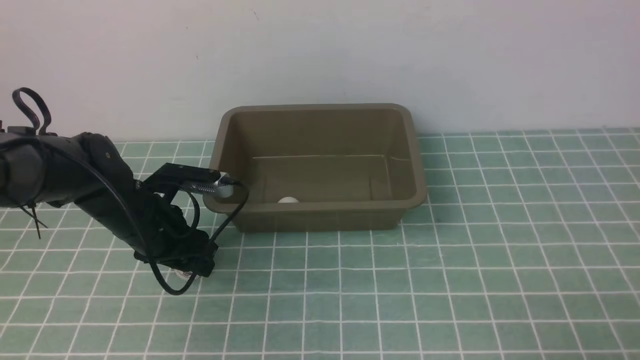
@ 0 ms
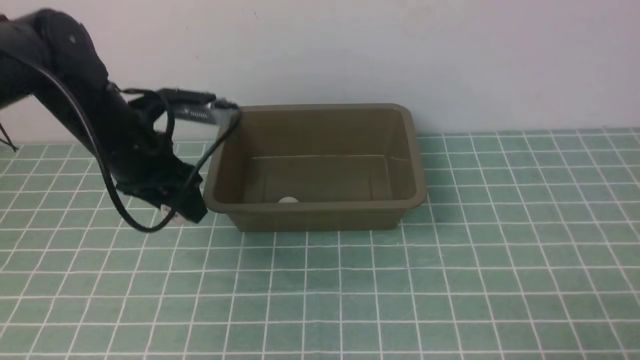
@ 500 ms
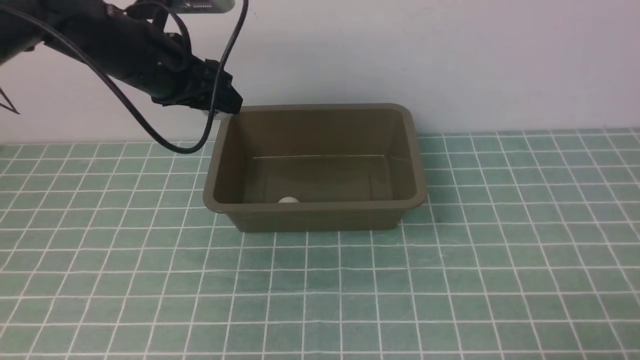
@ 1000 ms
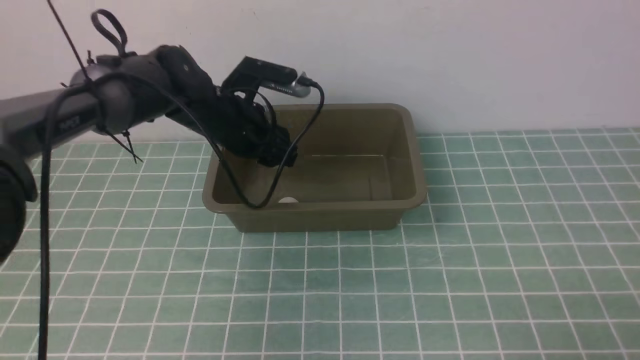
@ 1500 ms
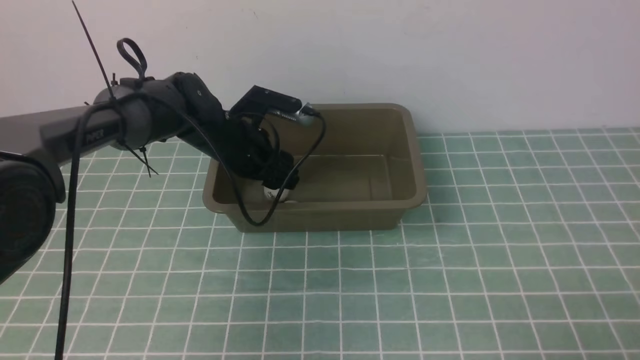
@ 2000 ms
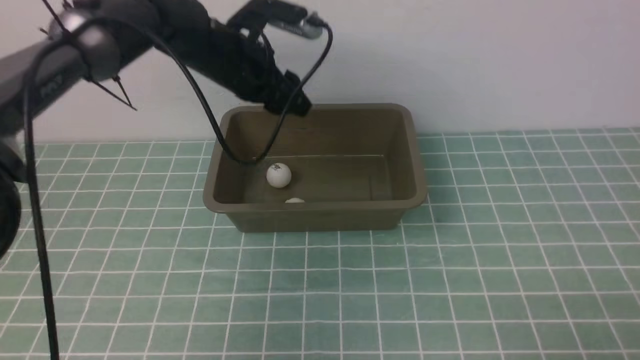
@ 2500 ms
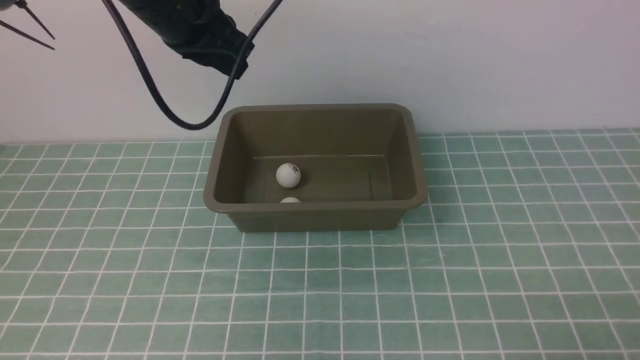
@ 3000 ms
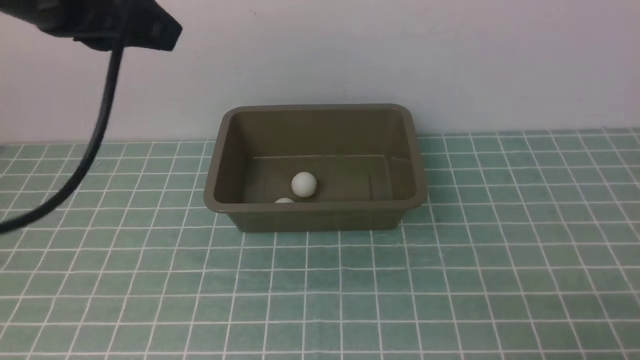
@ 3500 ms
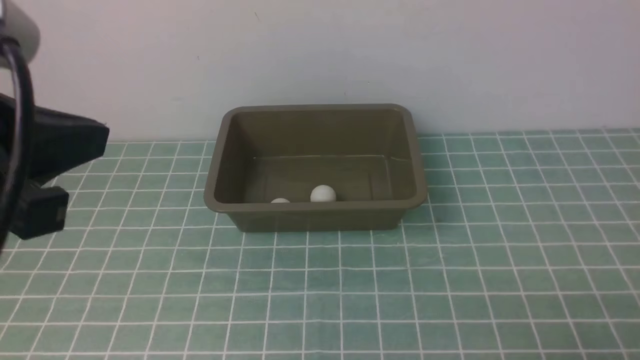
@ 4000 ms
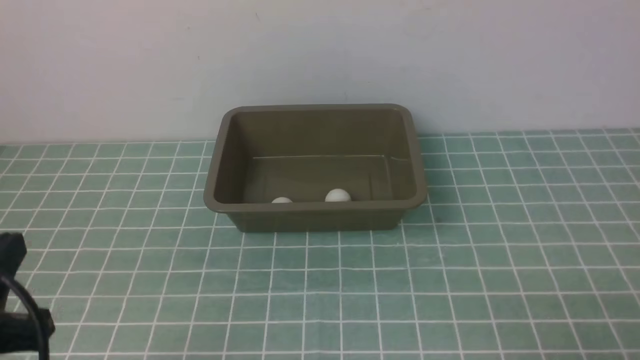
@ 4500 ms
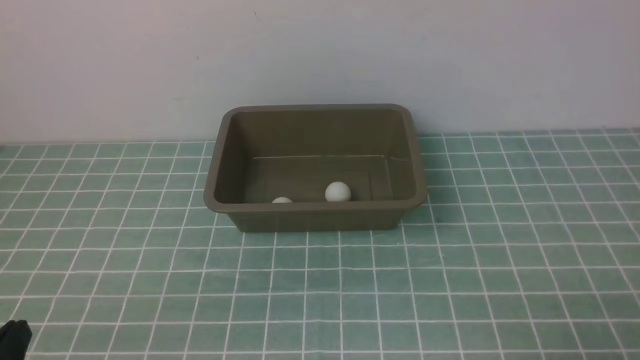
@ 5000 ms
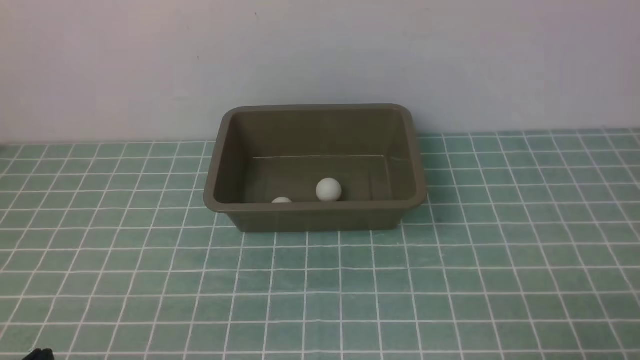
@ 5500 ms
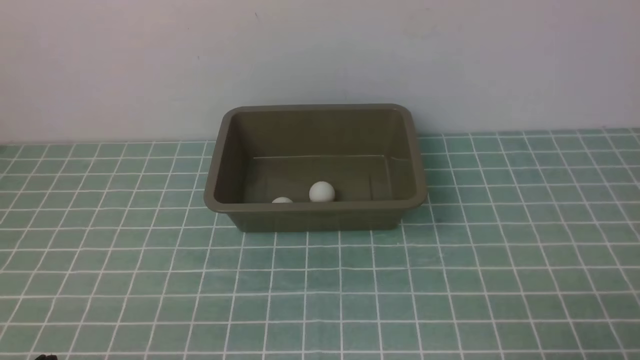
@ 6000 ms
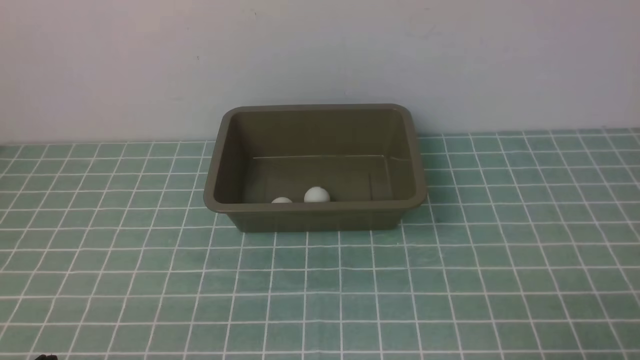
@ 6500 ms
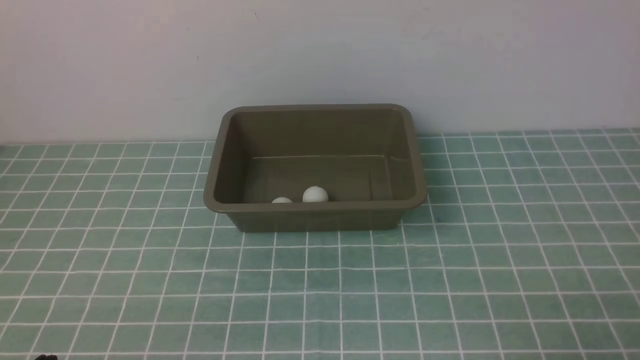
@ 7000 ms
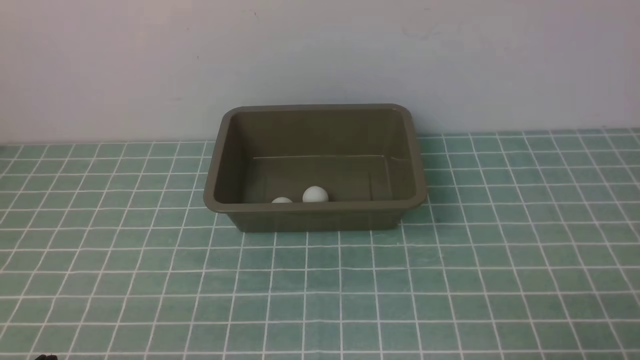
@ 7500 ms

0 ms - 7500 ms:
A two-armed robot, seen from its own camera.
Step, 500 ms - 2000 ms: use the left arm to put the table tennis ball into the box.
0 ms - 2000 ms: The left gripper heads forward and to the right, covering about 15 cm, and travels upward and back again, approximately 15 cm each way.
2000 ms - 4000 ms: The left gripper goes roughly 40 cm backward and upward, and closes.
4000 ms - 5500 ms: The left gripper goes some 30 cm downward and backward.
5500 ms - 7500 ms: The two grippers keep their place.
